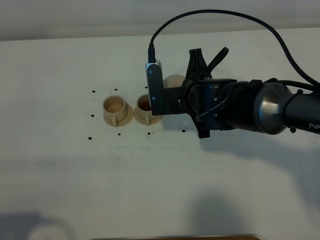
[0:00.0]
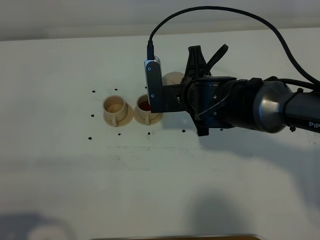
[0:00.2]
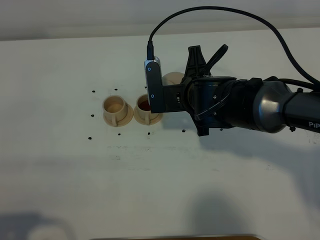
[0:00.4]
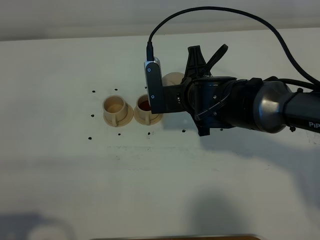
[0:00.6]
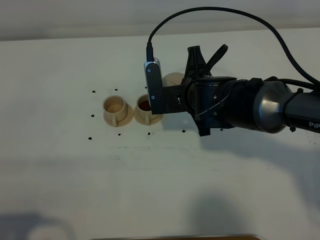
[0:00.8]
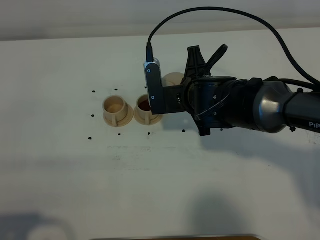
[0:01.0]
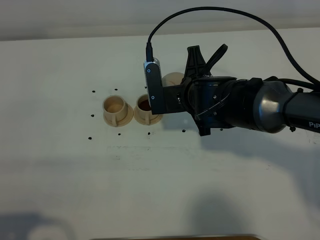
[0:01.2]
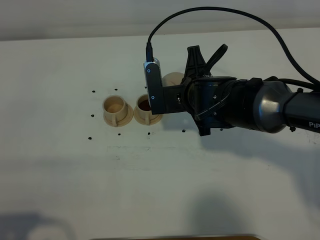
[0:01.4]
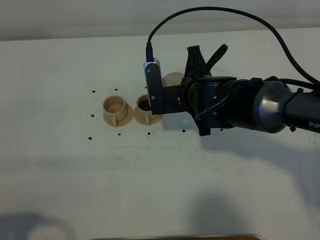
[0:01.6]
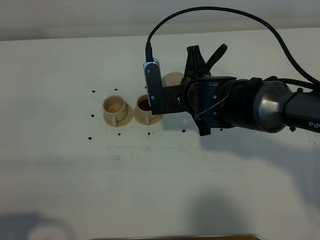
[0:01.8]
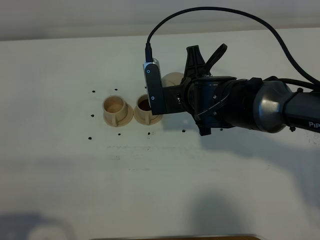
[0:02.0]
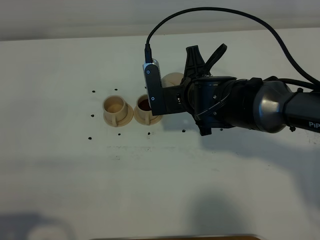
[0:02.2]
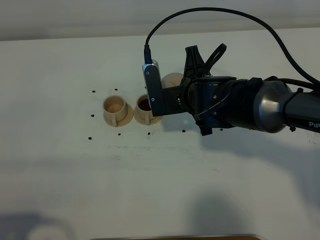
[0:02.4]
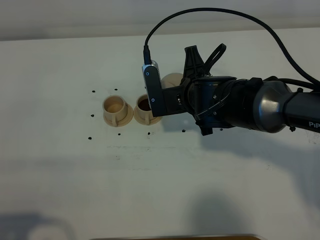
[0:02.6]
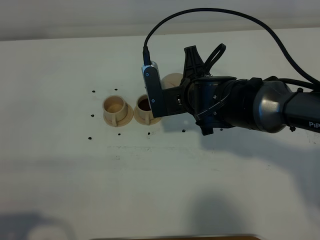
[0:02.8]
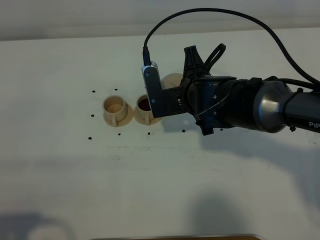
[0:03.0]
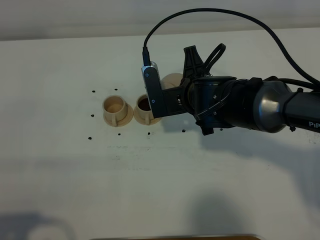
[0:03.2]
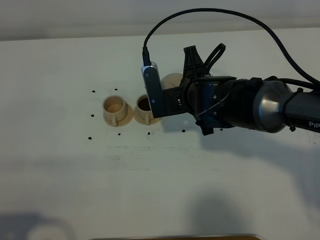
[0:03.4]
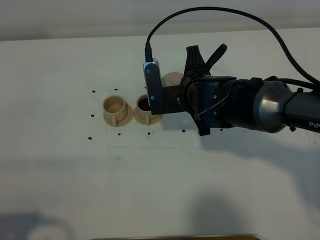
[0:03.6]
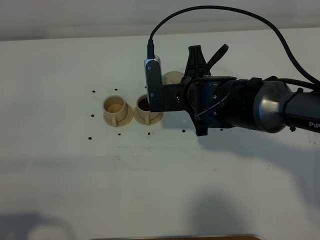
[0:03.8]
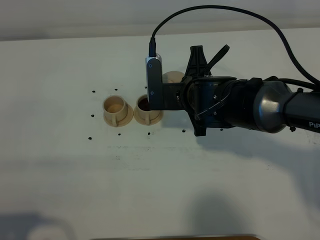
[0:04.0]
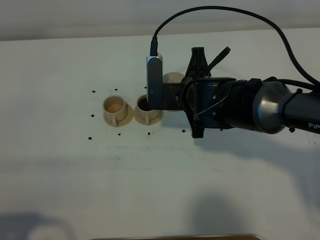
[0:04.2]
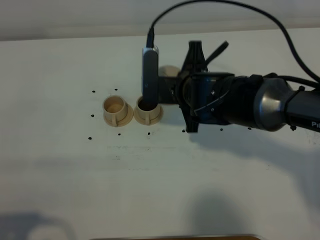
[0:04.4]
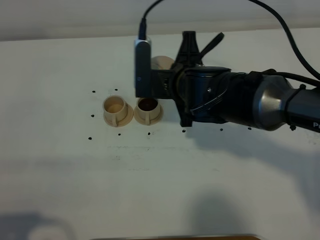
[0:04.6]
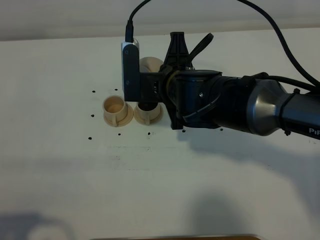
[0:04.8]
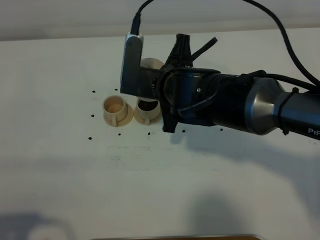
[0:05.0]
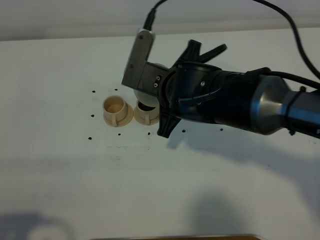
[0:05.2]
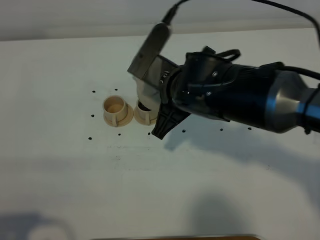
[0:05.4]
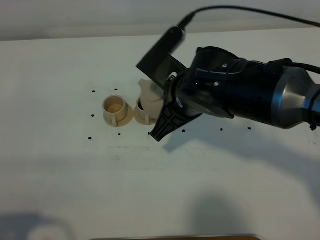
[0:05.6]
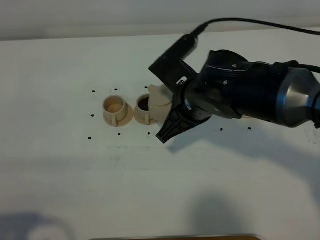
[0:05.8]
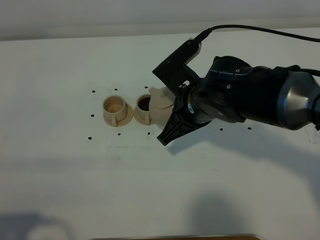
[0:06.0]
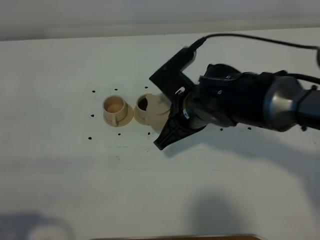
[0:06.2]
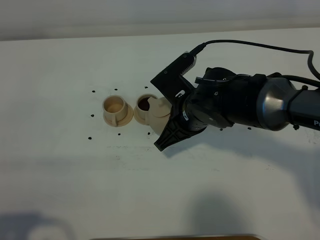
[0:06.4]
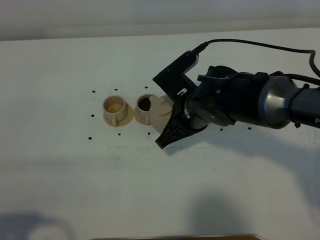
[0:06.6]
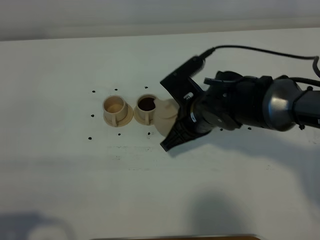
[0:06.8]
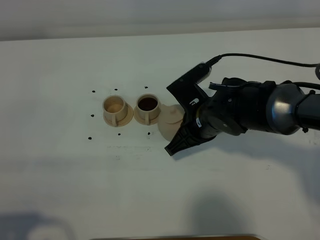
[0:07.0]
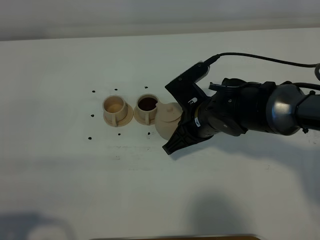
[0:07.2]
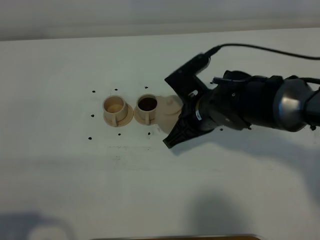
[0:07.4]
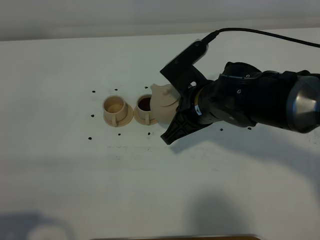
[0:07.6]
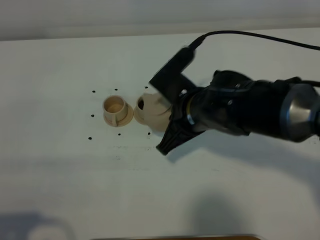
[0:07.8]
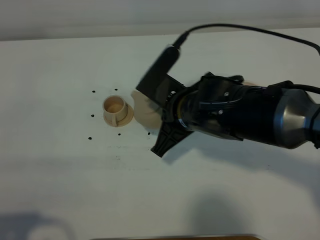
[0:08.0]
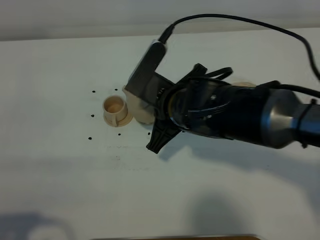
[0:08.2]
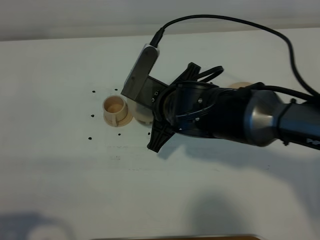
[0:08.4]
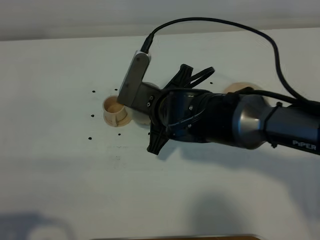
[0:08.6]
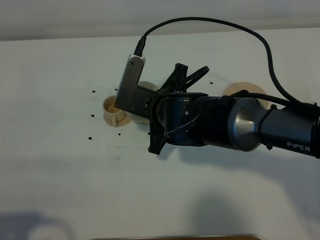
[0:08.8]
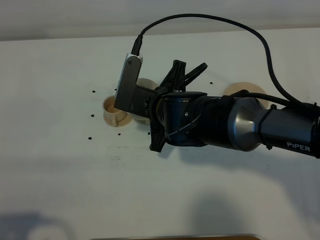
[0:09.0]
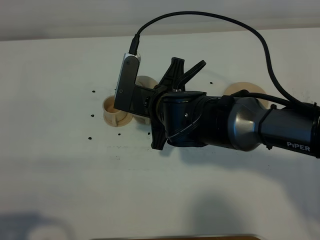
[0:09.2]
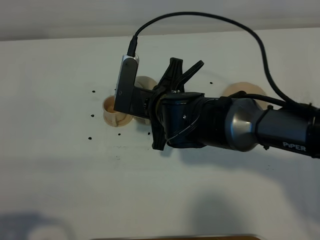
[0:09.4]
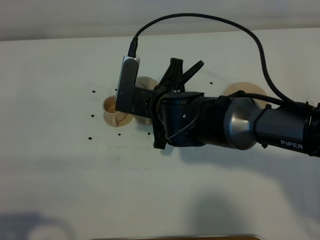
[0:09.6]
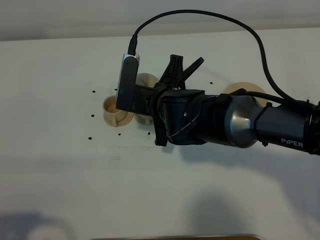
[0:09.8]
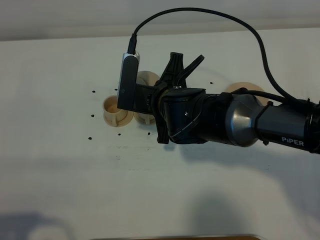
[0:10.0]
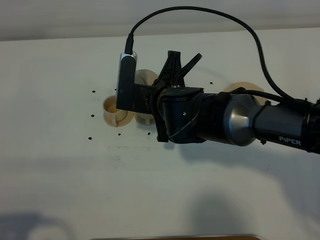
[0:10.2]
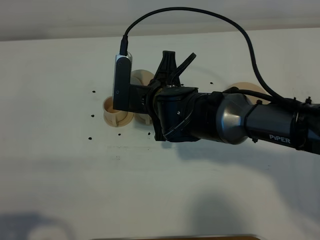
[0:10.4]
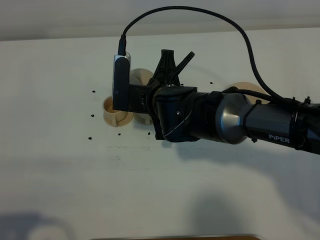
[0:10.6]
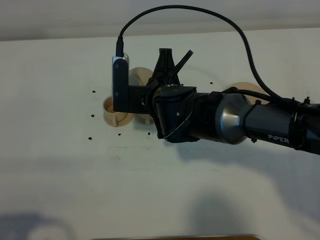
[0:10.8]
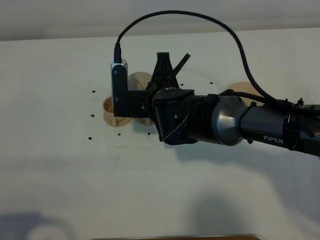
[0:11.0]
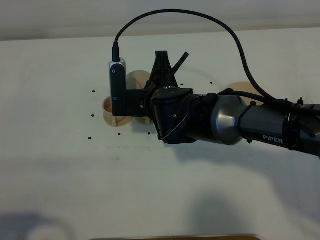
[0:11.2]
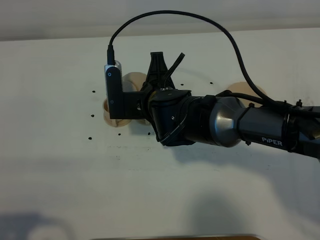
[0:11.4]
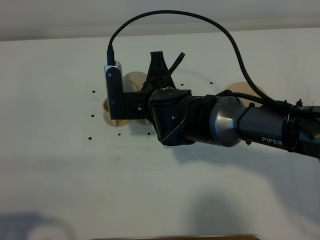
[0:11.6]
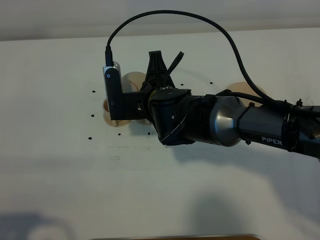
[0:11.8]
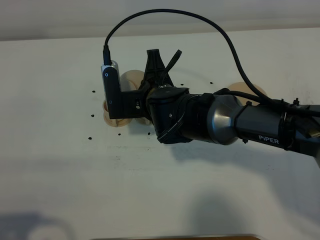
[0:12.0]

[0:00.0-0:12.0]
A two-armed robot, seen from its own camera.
Task of the whole recording: grasp the brown teapot and pour the tea into the two brown teacups one by one, put the brown teapot back in its original place.
0:00.0 to 0:01.6: Both grippers stay put.
0:01.6 to 0:03.0: Both grippers stay put.
0:03.0 to 0:04.4: The grippers make only small movements.
0:06.0 to 0:07.6: There are only small adjustments of the grippers.
0:07.6 to 0:09.0: The right gripper goes about 5 cm to the left.
0:09.0 to 0:10.4: The grippers move only a little.
0:10.4 to 0:12.0: There are only small adjustments of the grippers.

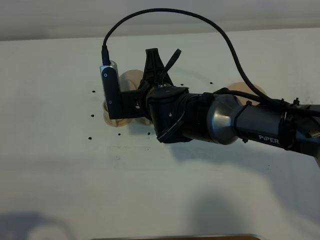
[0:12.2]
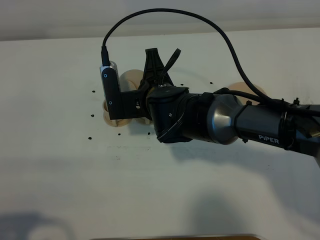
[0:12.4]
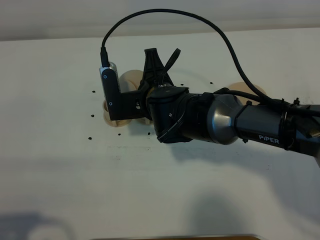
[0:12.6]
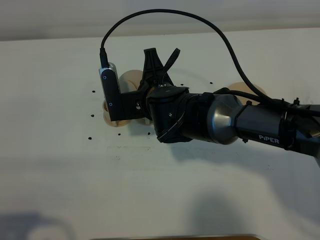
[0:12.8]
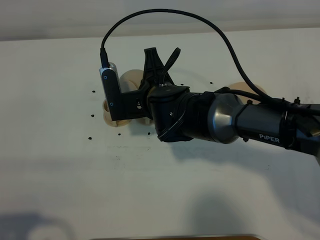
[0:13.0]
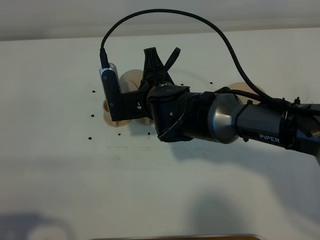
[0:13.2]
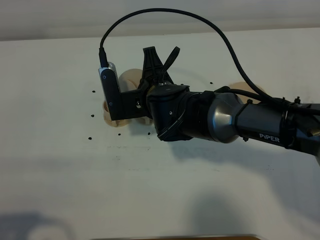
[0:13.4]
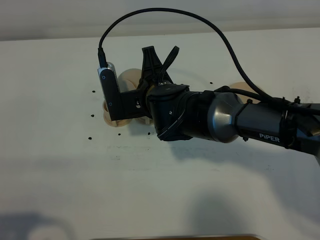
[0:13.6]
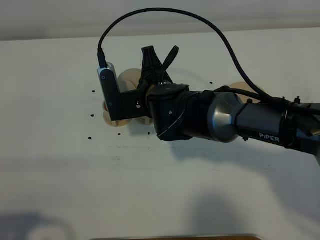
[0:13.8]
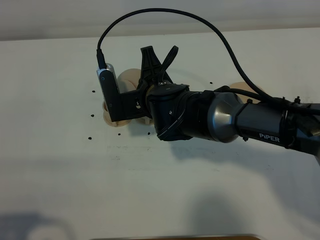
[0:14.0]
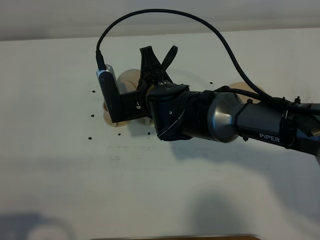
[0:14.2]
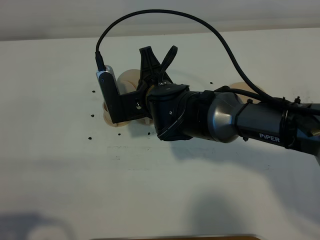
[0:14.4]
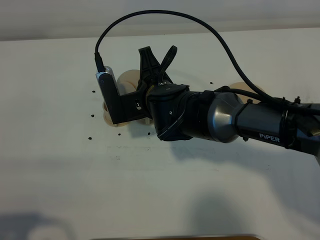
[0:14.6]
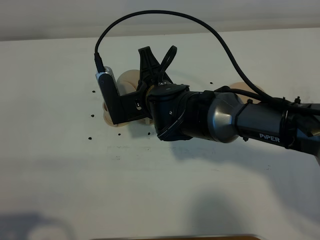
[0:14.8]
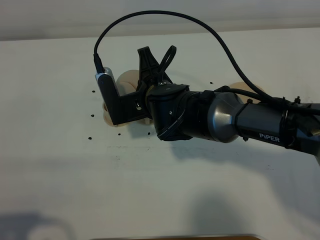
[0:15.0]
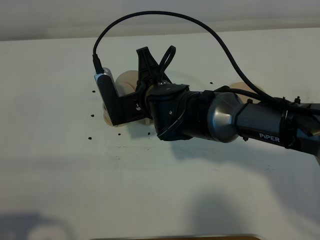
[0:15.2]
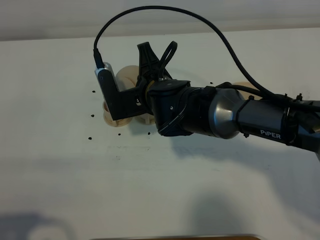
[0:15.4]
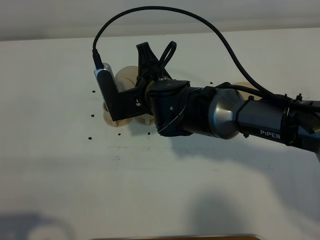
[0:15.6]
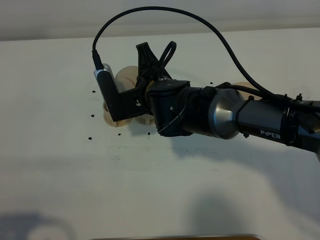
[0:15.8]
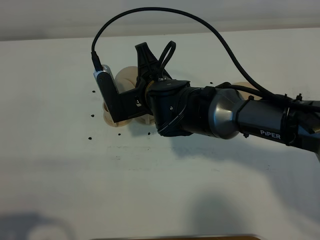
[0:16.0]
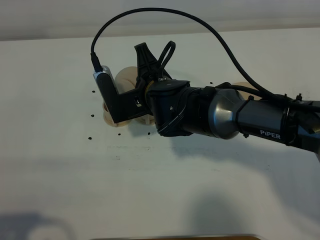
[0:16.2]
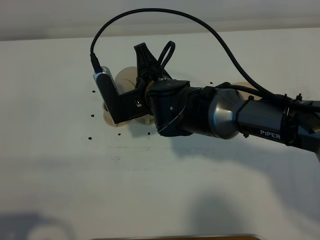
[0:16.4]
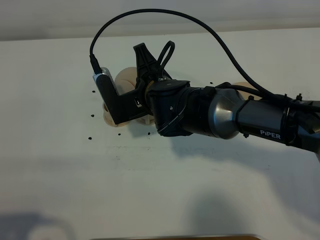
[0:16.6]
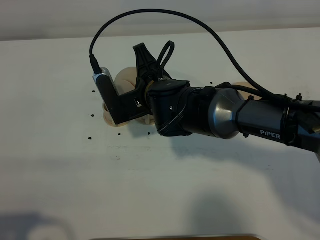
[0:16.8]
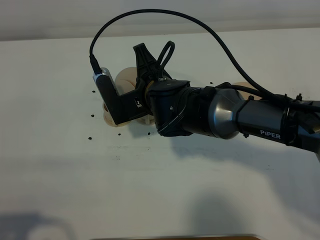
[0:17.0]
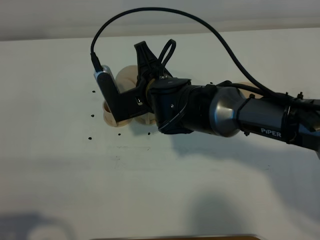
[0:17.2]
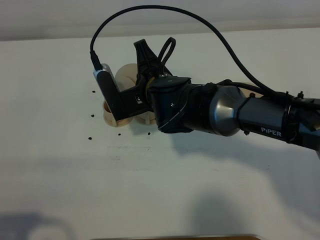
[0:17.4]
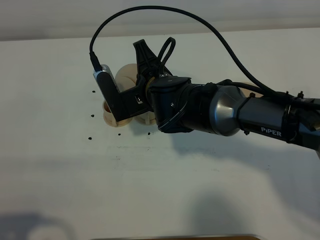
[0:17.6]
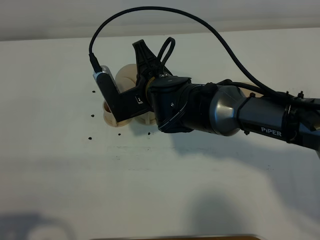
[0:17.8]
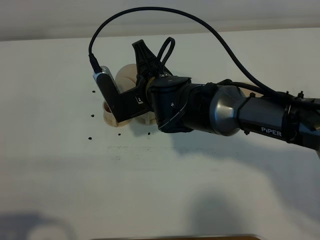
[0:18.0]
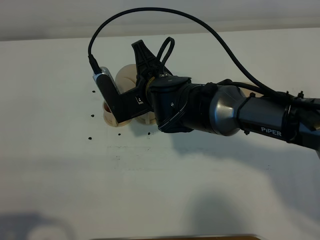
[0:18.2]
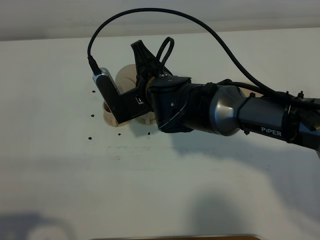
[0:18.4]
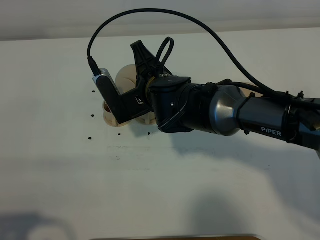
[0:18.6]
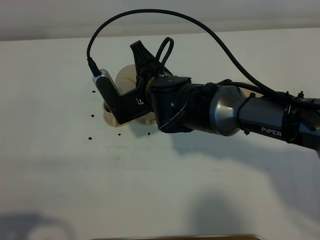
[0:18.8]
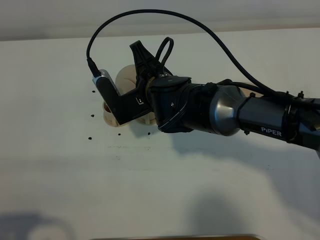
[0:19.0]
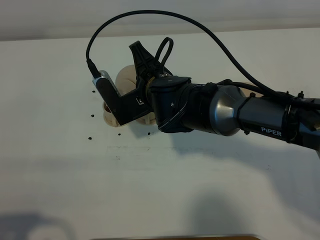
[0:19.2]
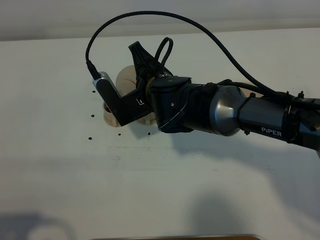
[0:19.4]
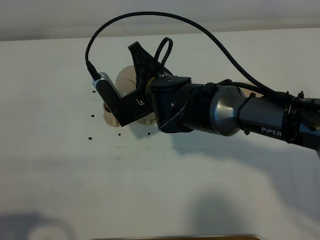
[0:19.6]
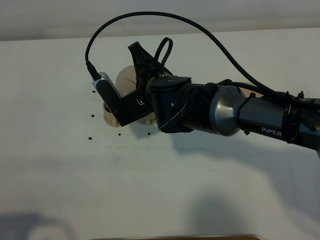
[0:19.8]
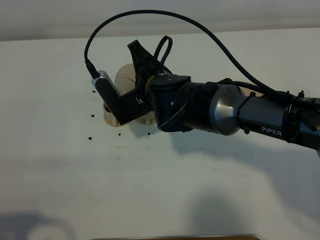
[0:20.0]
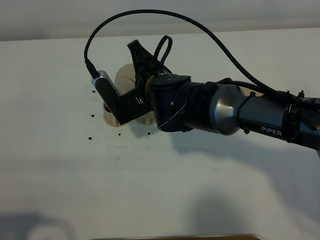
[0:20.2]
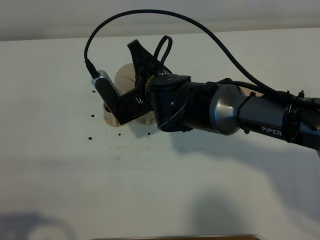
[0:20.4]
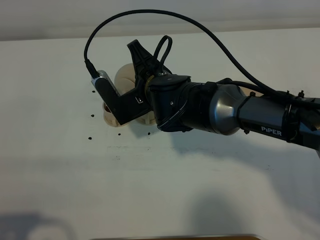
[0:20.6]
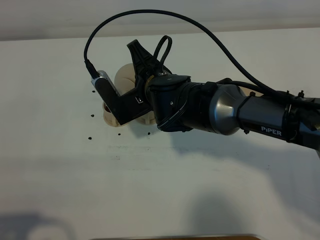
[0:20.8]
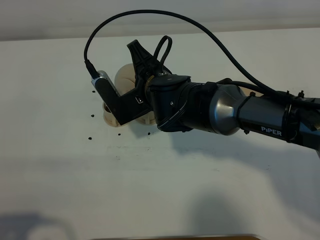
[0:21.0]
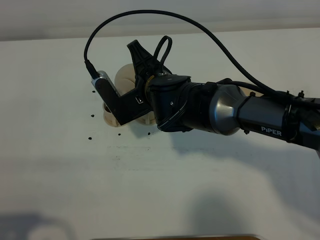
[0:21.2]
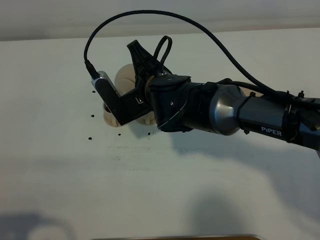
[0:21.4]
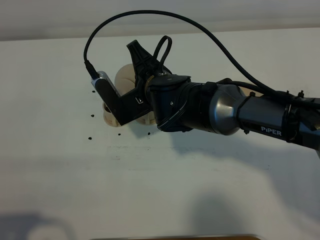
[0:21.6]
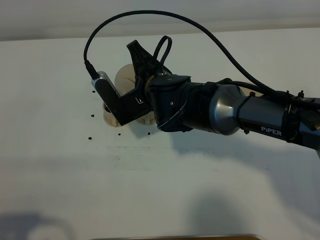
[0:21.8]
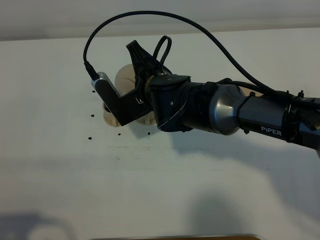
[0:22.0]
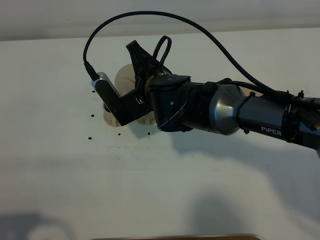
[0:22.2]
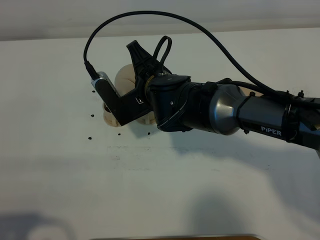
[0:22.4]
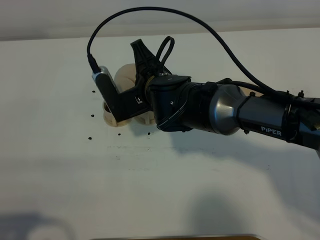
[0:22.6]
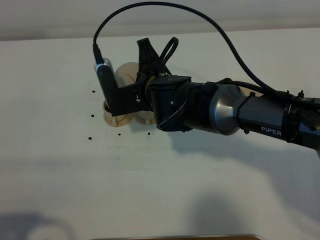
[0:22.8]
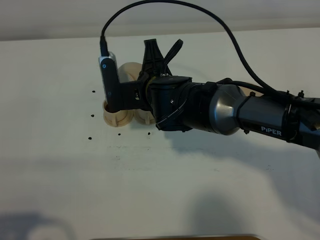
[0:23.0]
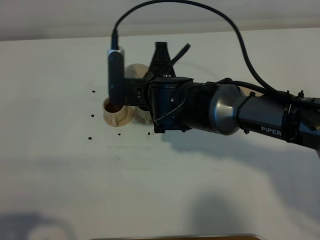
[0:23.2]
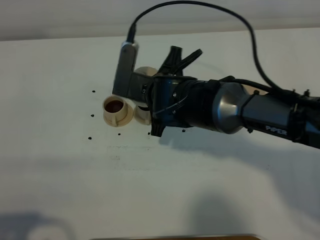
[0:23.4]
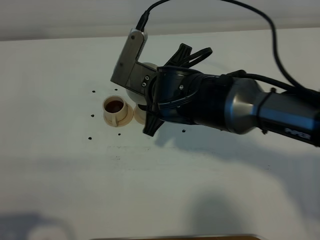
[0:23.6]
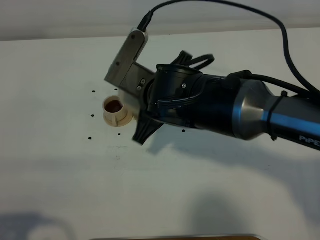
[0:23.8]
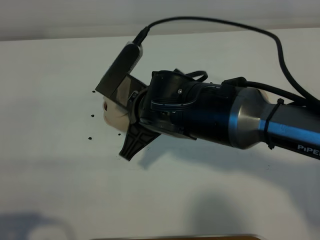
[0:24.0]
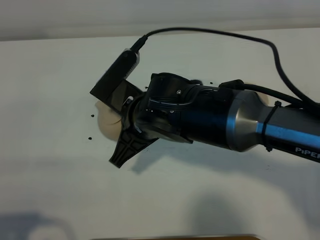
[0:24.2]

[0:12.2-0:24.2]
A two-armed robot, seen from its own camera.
Task of the whole recording: grasp the brown teapot and pour the tea into the two brown teacups one by one, put the brown teapot back in its original place.
Step, 0:12.2 to 0:23.0: Pour tea into the teacup with the right gripper.
0:12.2 to 0:13.8: Both grippers stay put.
0:13.8 to 0:15.2: The grippers stay close to where they were, moving slightly.
0:15.2 to 0:16.6: Both grippers stay put.
0:16.6 to 0:18.2: The two grippers keep their place.
0:18.2 to 0:19.8: The grippers stay close to where they were, moving slightly.
0:19.8 to 0:21.2: The two grippers keep their place.
0:21.2 to 0:22.6: There are only small adjustments of the grippers.
0:22.6 to 0:24.2: The right gripper shifts roughly 10 cm backward.
